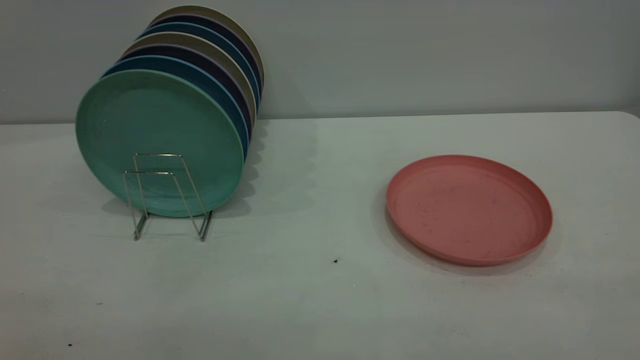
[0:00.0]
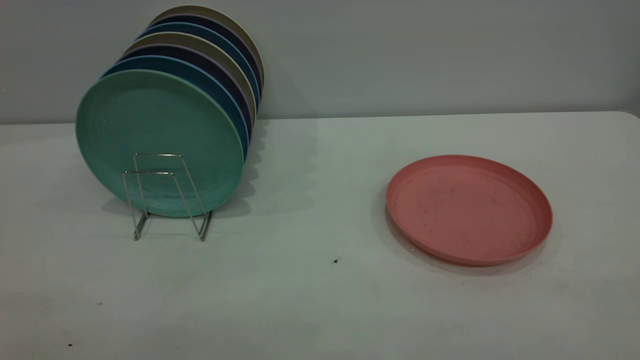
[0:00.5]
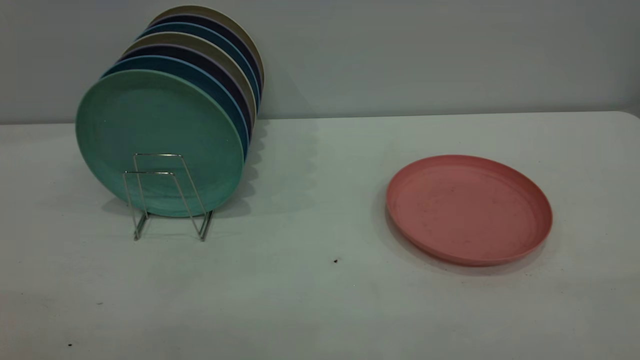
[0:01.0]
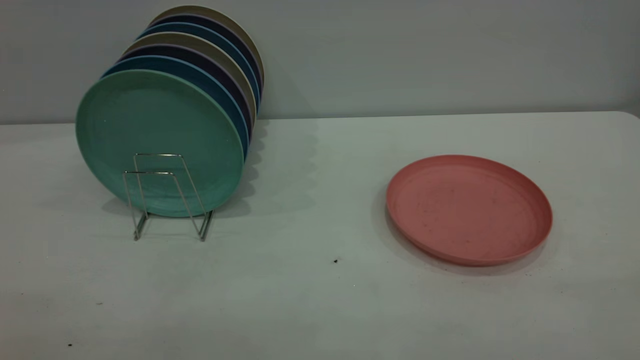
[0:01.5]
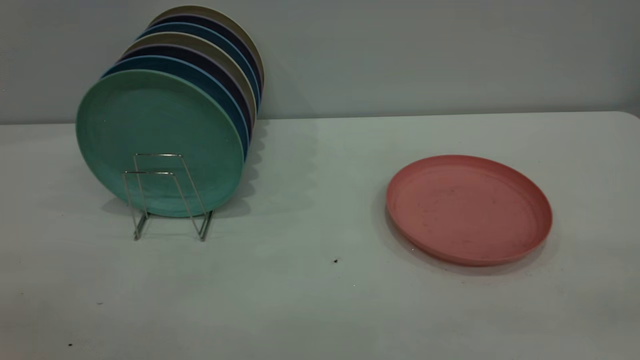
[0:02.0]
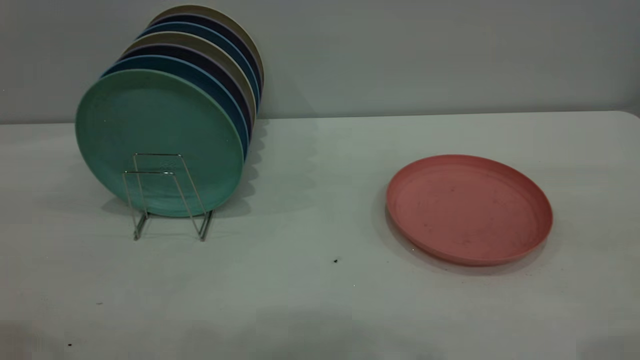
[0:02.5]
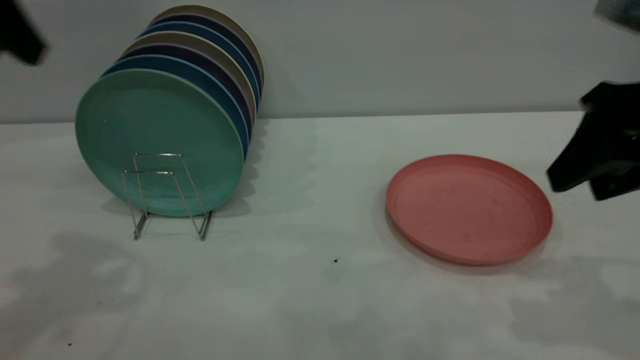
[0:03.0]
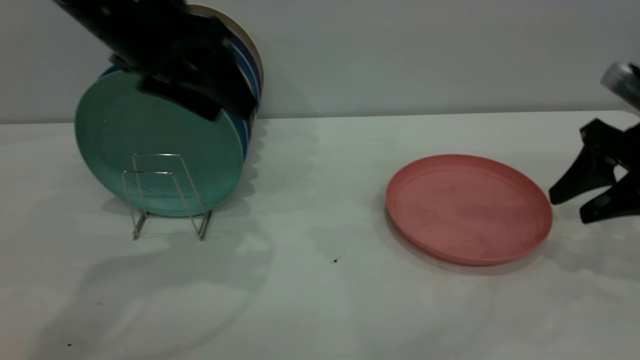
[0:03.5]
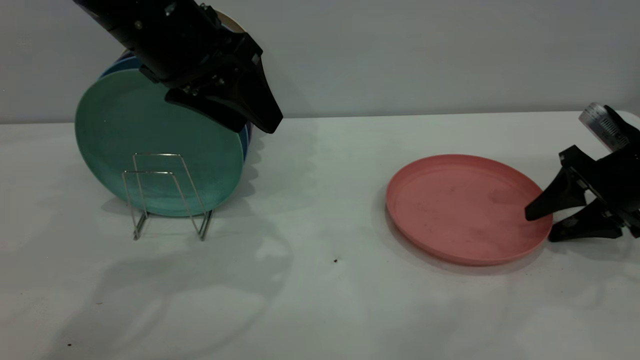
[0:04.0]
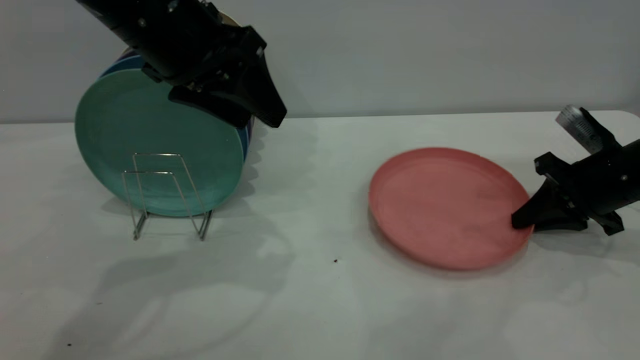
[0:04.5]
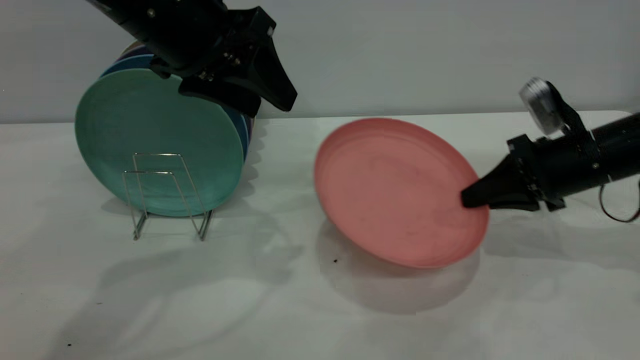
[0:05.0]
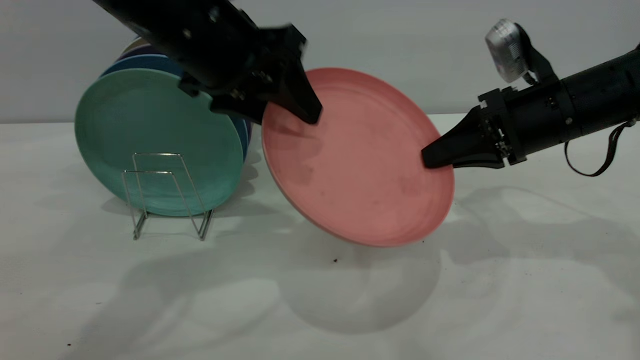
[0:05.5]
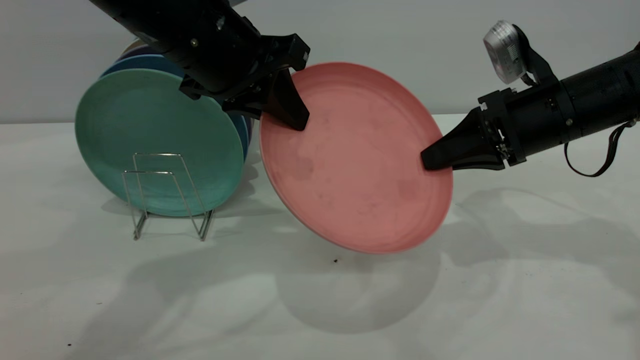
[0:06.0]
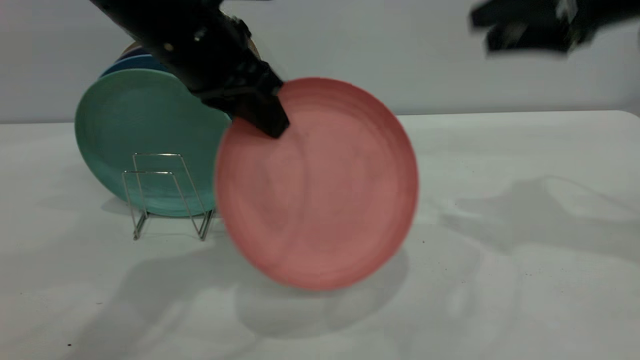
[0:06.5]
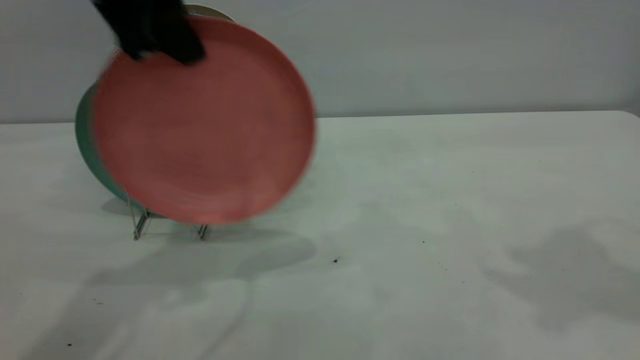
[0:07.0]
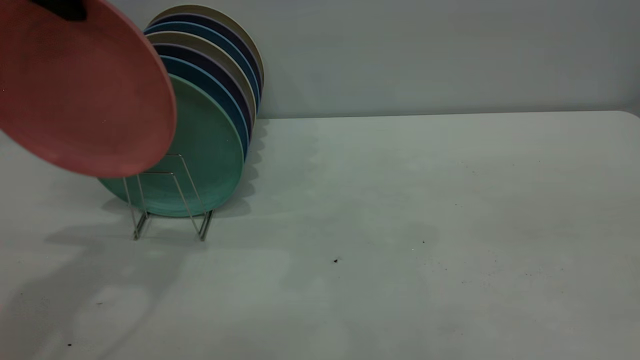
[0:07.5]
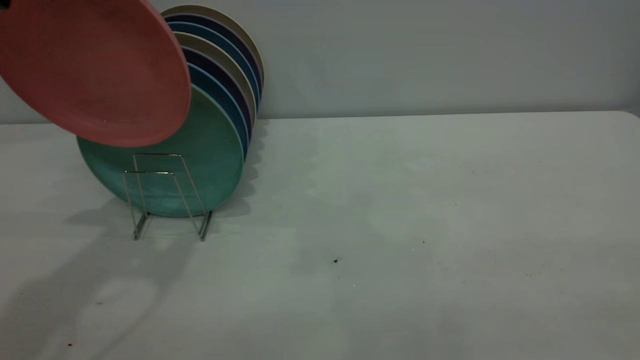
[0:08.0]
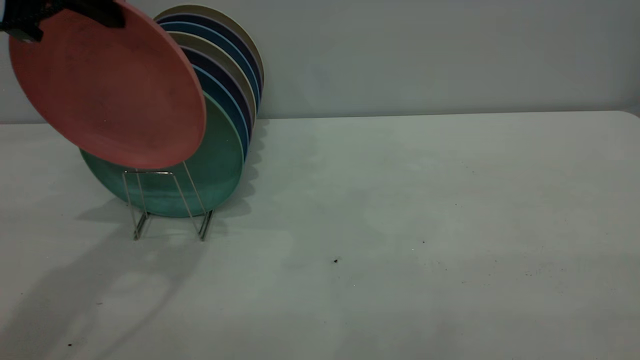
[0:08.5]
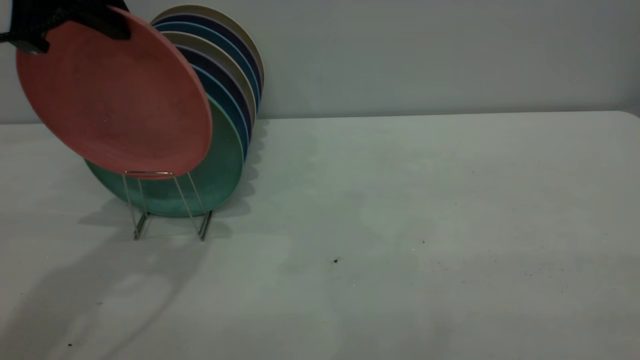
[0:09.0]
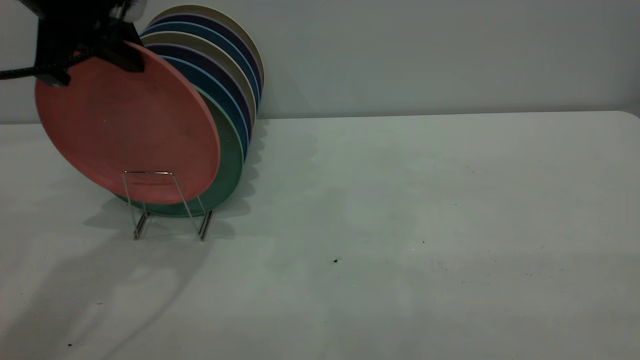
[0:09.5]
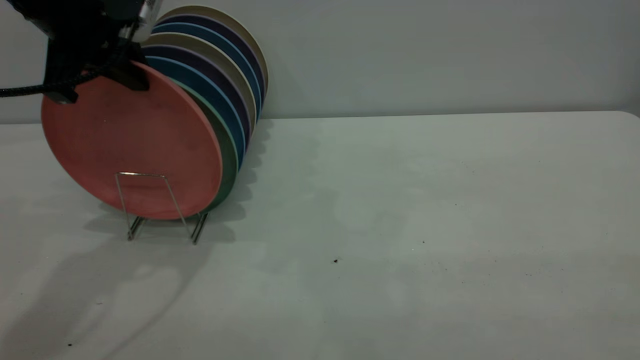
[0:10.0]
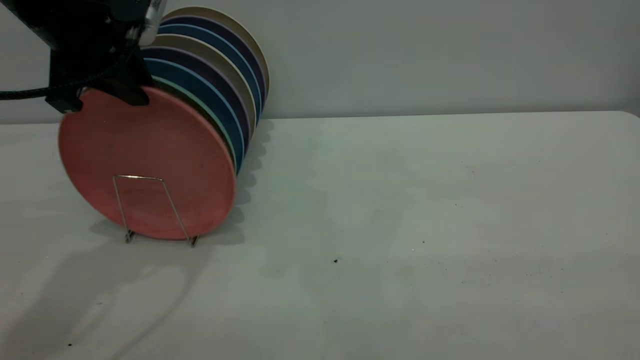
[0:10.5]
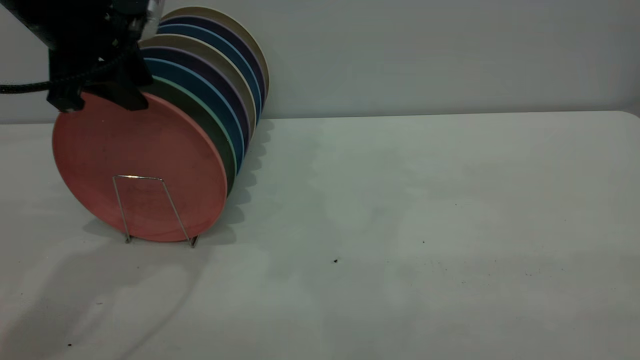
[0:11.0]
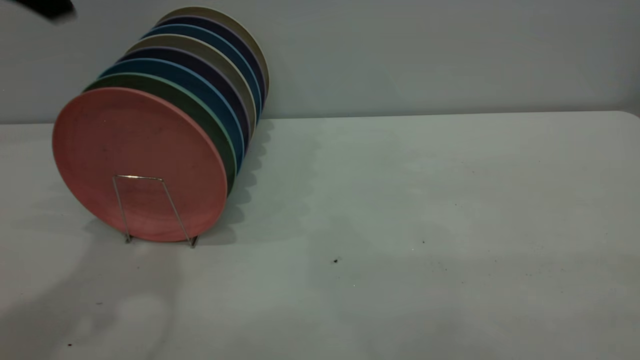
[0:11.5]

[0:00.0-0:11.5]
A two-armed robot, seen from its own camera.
Task of the whole recording: the right gripper grasp the pink plate, the right gripper pass the pink plate to the left gripper, and the left gripper place the pink plate on the plate rack.
Step, 0:00.0 to 0:05.0: Pick up the plate with the right gripper.
Step, 0:05.5 to 0:07.5: Pass the plate from the right gripper to the left gripper.
Step, 0:08.0 to 0:11.0: Place the plate on the shelf.
0:02.0 to 0:04.0: The left gripper moves forward and to the right, some 35 cm; the right gripper travels forward and downward by about 50 cm.
0:04.0 to 0:06.0: The left gripper closes; the right gripper moves to the left and upward, approximately 15 cm, and closes its fingers.
0:06.0 to 0:07.5: The left gripper heads to the left and upward, covering about 15 cm. The right gripper shifts approximately 40 cm backward and upward, and opens its fingers.
0:07.5 to 0:09.5: The left gripper moves downward, roughly 5 cm.
0:09.5 to 0:11.5: The left gripper goes approximately 10 cm upward and backward, and opens.
